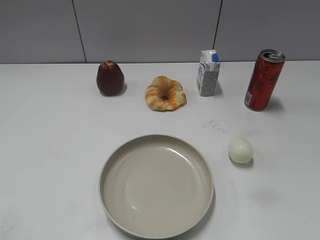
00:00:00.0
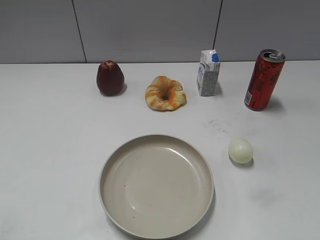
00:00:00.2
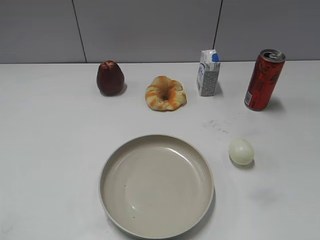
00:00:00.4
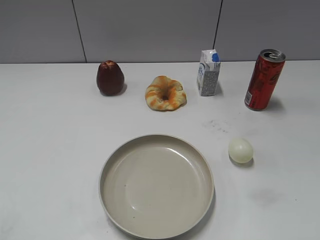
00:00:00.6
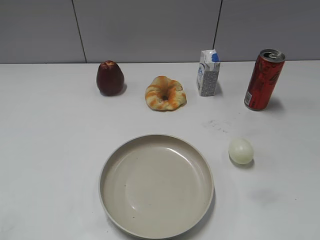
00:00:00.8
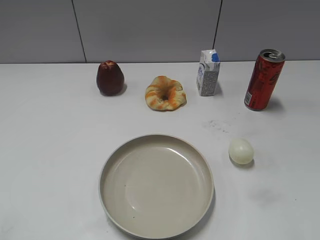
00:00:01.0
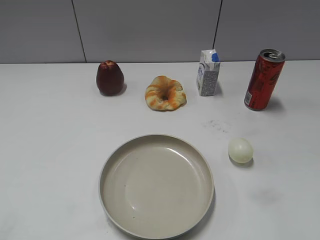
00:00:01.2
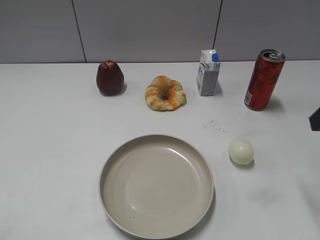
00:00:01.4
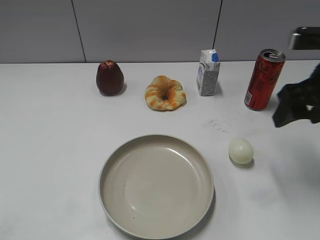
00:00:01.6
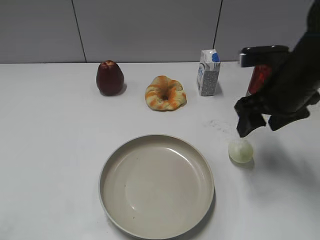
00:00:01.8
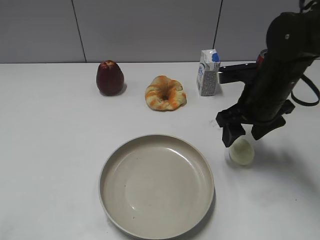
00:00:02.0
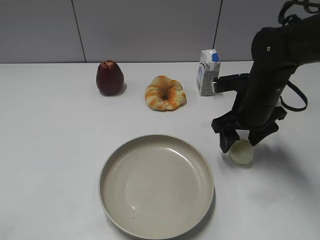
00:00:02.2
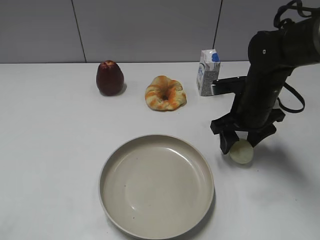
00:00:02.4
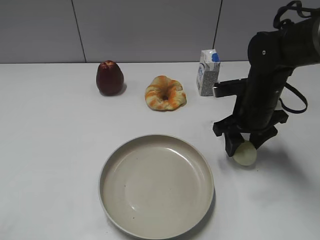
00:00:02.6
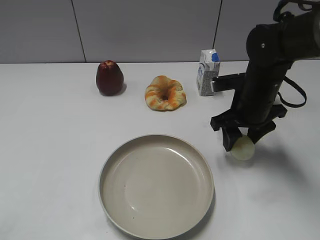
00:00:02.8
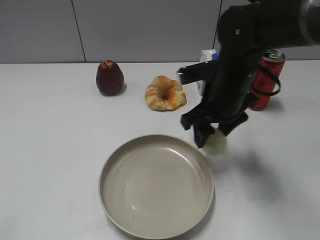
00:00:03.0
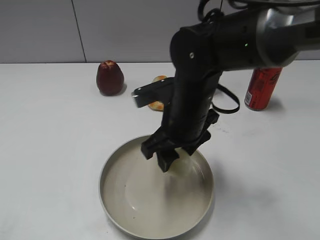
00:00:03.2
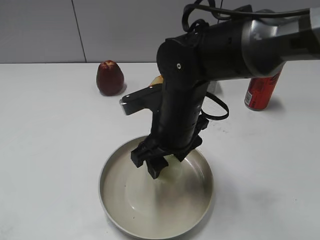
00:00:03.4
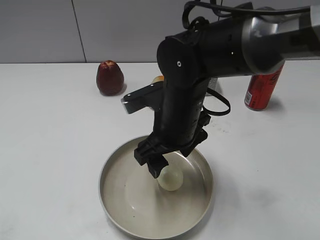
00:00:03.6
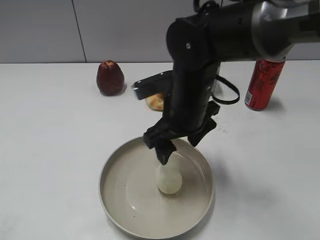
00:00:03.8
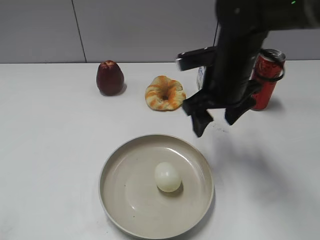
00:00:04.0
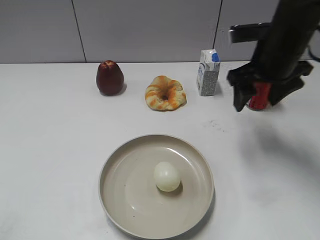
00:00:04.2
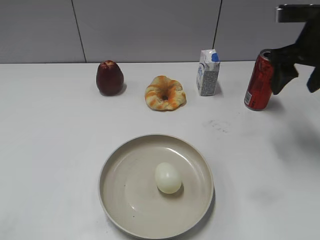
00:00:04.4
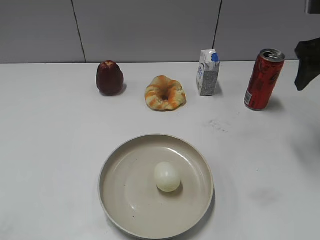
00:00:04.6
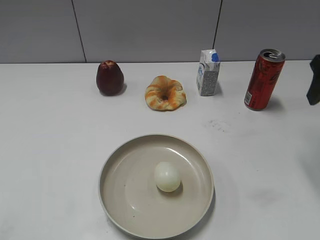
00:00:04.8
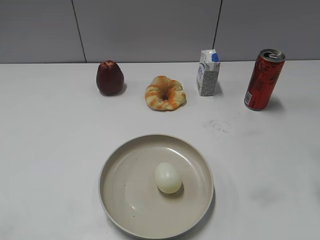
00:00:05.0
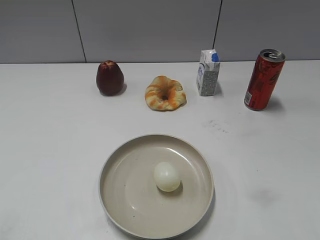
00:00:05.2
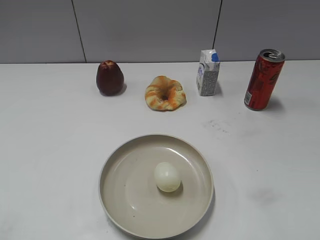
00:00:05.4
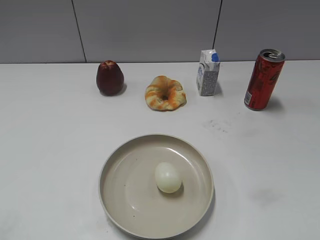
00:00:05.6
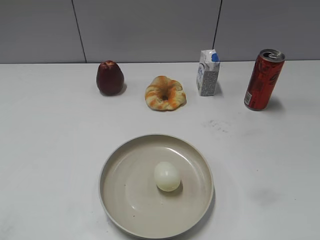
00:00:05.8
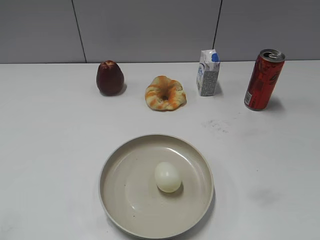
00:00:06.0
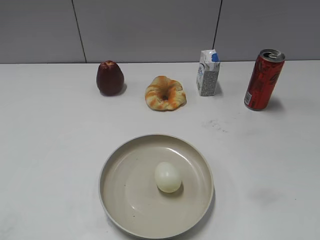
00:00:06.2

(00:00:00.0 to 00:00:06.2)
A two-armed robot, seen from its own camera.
Step, 00:00:01.2 - 00:00:02.6: Grasp the egg with right gripper.
Step, 00:00:03.0 - 00:00:03.6: Place the egg on the plate with right gripper.
00:00:01.6 - 00:00:03.2: The right gripper moves to the left and downward, approximately 20 cm, and closes its fingers.
00:00:03.2 - 00:00:04.6: The right gripper is displaced to the right and upward by about 25 cm, and opens its fingers.
00:00:04.6 - 00:00:06.2: The right gripper heads backward, covering about 30 cm.
